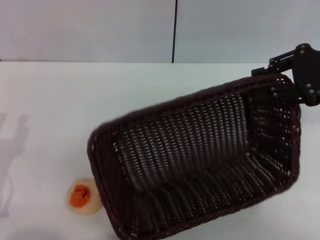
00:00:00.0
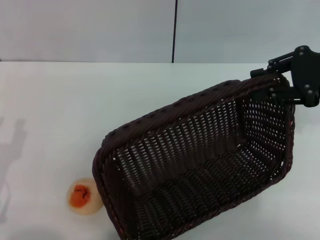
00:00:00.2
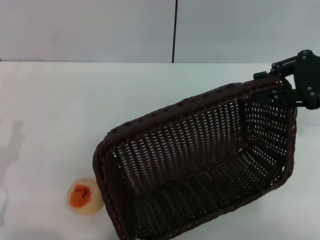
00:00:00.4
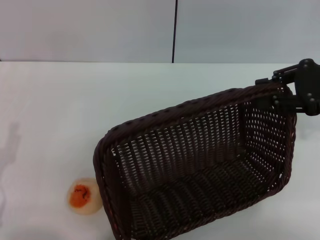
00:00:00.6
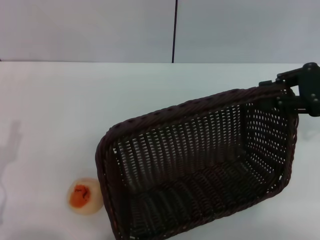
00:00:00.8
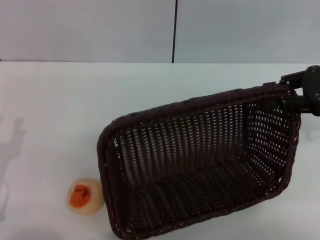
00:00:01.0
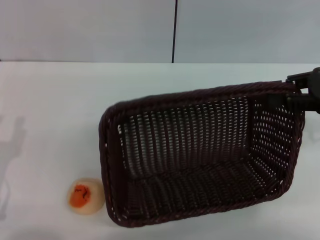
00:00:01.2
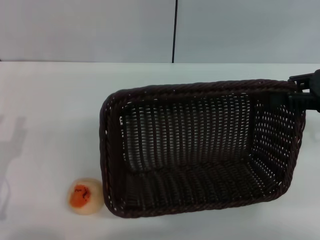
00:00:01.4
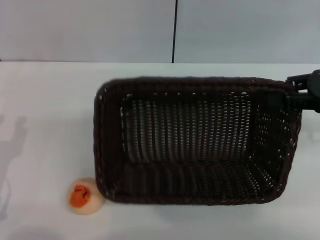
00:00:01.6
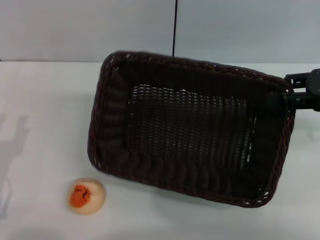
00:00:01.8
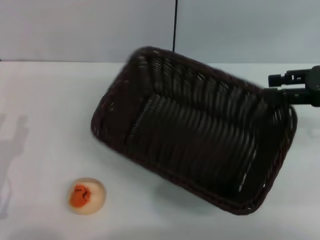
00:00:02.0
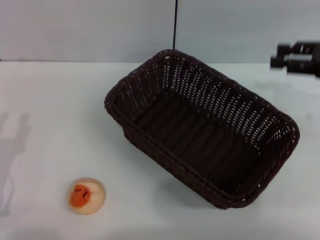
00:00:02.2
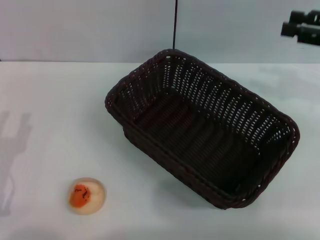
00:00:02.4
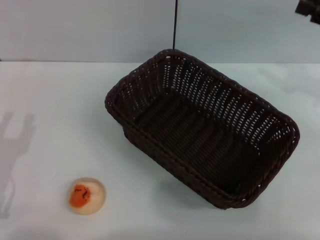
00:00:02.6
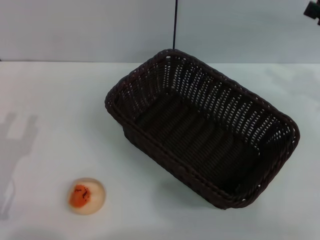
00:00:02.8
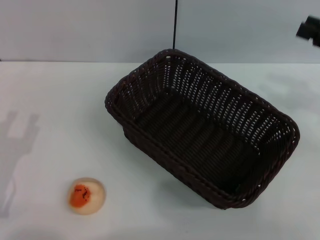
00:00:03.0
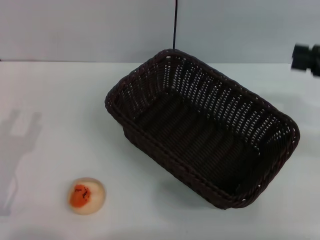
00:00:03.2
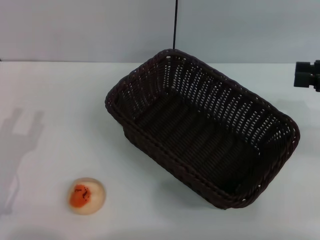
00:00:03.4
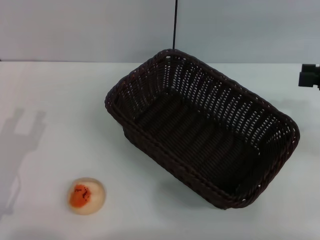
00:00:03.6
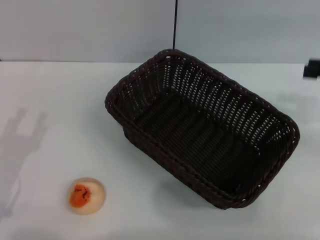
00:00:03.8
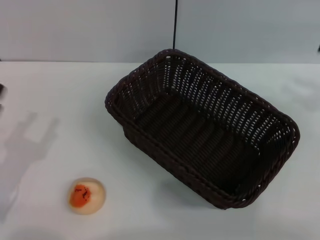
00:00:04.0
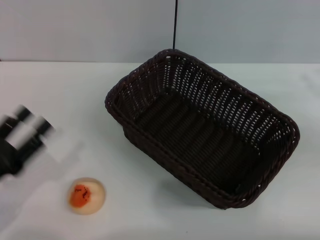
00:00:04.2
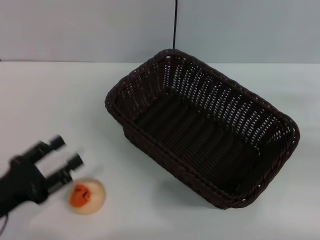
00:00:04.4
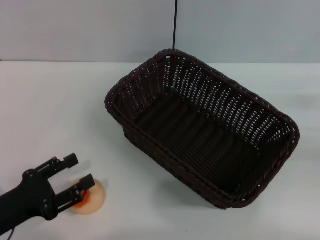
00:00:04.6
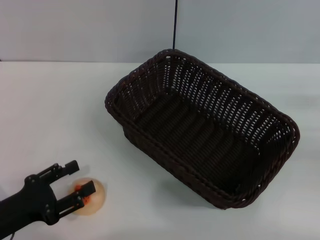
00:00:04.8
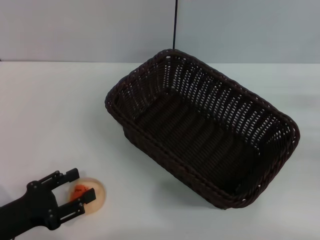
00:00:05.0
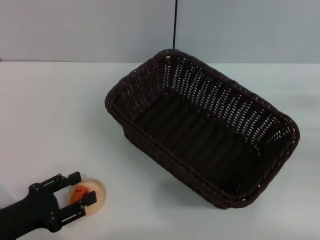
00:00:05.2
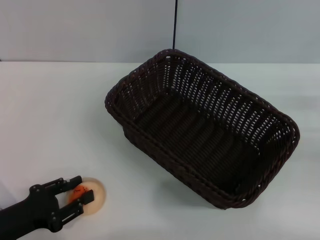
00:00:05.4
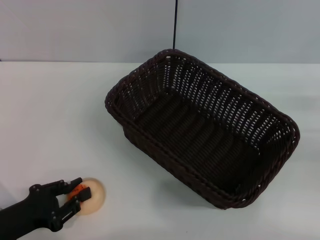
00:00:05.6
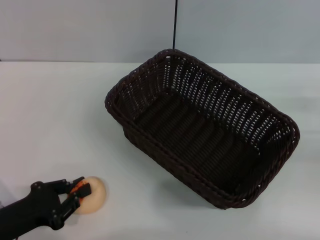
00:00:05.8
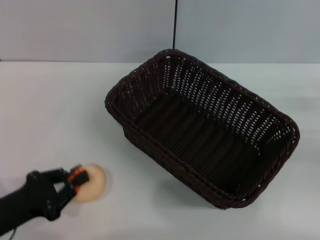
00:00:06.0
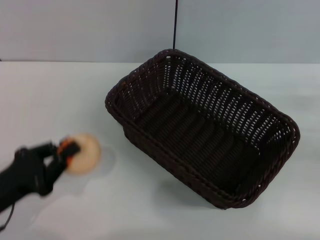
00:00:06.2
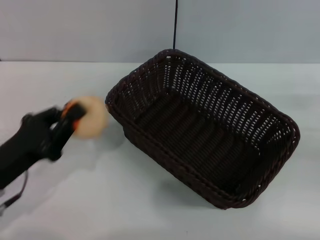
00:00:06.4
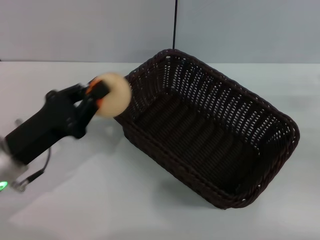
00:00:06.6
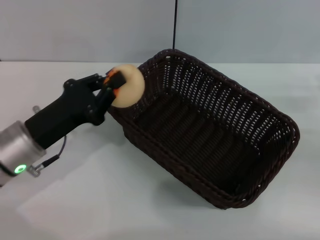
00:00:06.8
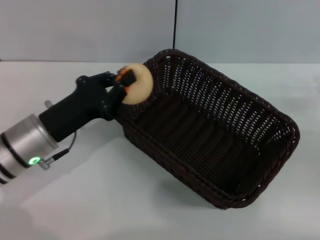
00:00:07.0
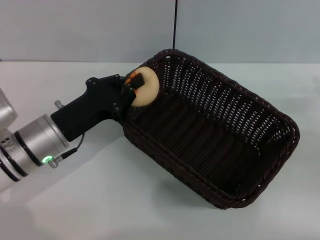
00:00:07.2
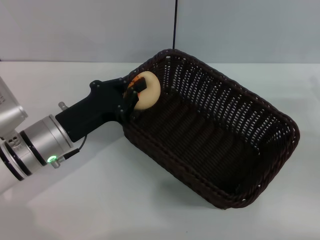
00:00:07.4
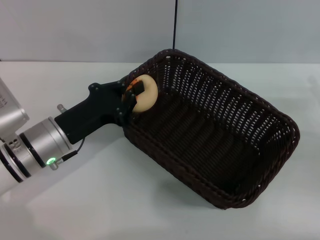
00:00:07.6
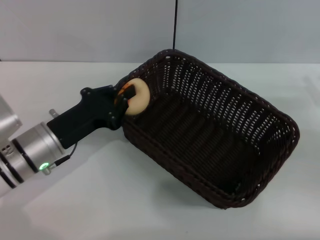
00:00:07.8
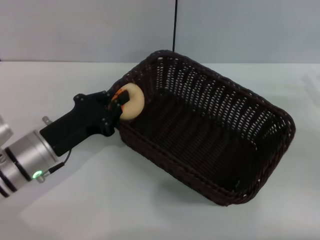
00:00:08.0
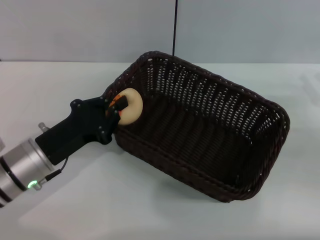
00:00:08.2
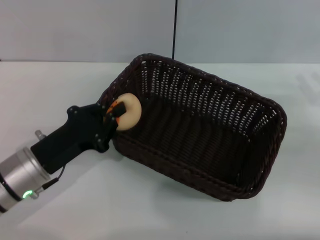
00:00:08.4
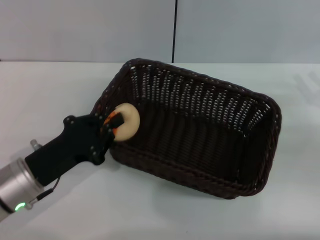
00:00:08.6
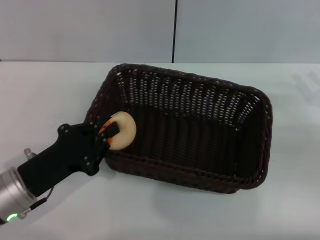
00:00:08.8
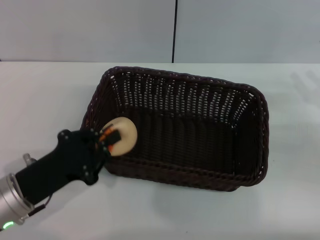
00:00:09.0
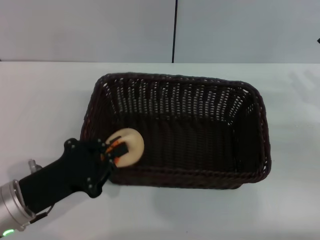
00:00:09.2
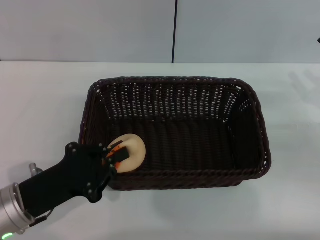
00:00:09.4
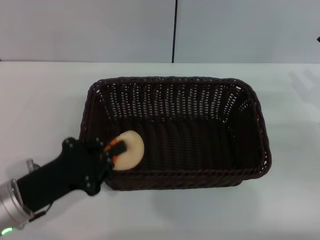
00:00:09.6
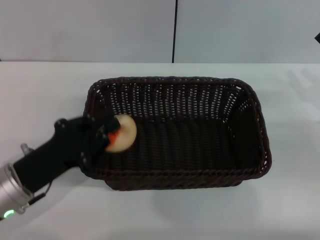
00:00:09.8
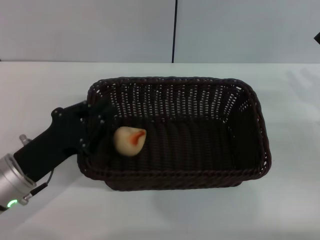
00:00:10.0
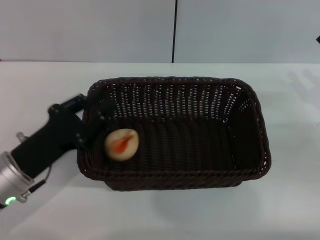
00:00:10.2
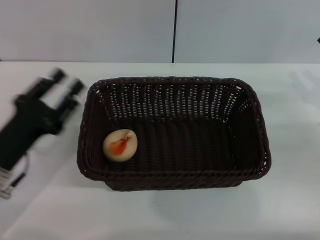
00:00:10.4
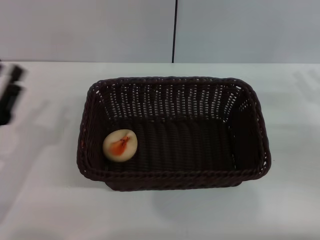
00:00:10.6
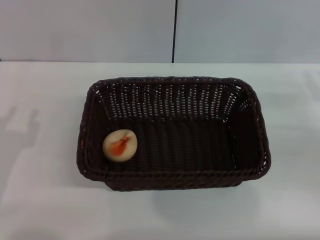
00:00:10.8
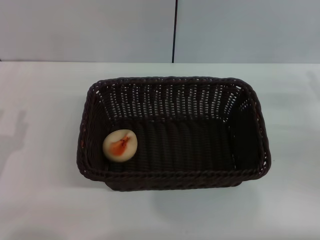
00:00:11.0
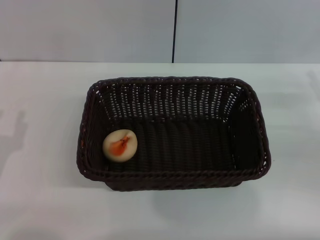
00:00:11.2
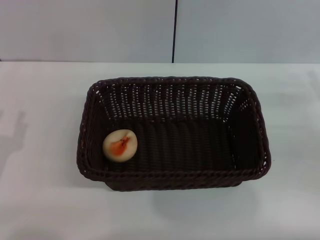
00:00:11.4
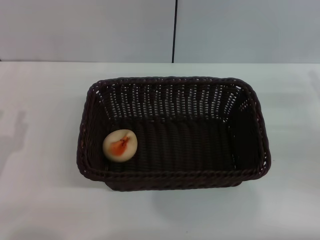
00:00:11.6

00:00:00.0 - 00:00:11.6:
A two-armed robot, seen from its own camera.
Step, 00:00:00.0 - 00:00:02.2: Move the basket to the center of view with the right gripper.
Step, 00:00:02.4 - 00:00:06.2: Pick up the egg yolk pastry with the left gripper.
Step, 00:00:06.4 - 00:00:10.2: Place the egg yolk pastry into the basket with the left gripper.
00:00:00.0 - 00:00:01.4: The right gripper shifts by some 5 cm.
00:00:01.4 - 00:00:02.8: The right gripper opens up.
00:00:02.8 - 00:00:04.4: The right gripper moves downward and backward, about 10 cm.
00:00:04.4 - 00:00:05.8: The left gripper closes its fingers.
00:00:05.8 - 00:00:07.2: The left gripper goes about 15 cm forward and to the right.
00:00:07.2 - 00:00:08.8: The left gripper is displaced backward by approximately 5 cm.
00:00:08.8 - 00:00:10.2: The grippers move only a little.
00:00:10.2 - 00:00:11.6: The left gripper shifts roughly 10 cm to the left and backward, and opens.

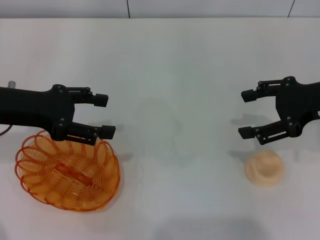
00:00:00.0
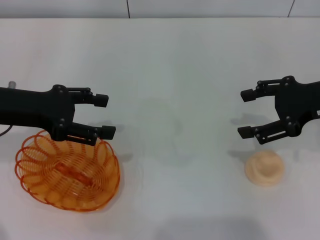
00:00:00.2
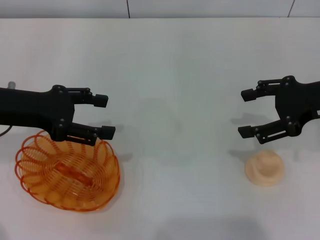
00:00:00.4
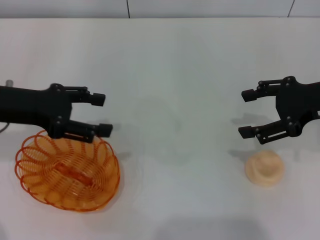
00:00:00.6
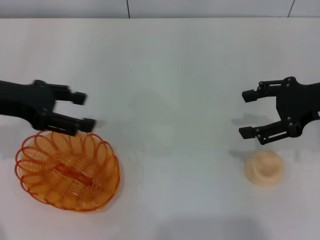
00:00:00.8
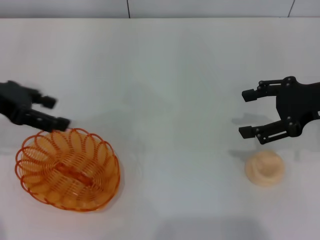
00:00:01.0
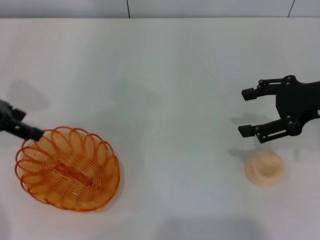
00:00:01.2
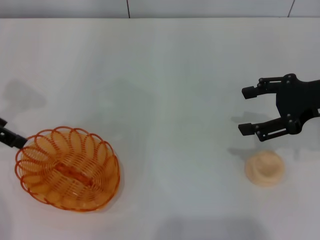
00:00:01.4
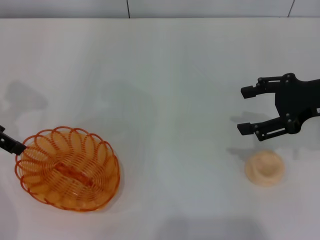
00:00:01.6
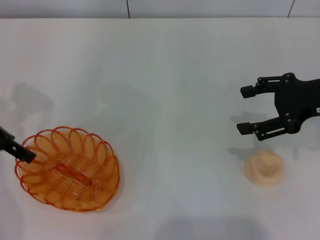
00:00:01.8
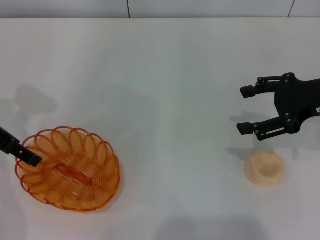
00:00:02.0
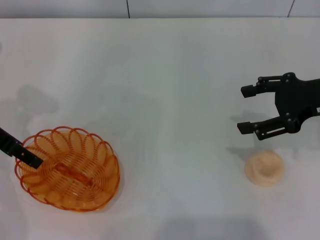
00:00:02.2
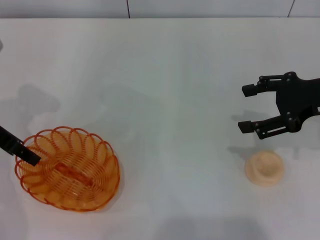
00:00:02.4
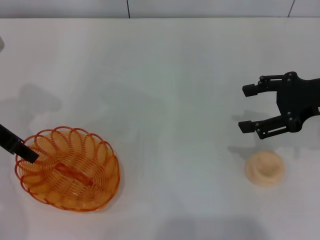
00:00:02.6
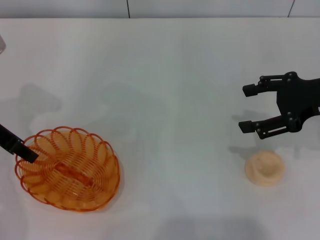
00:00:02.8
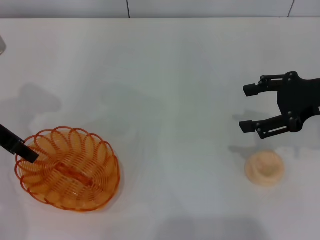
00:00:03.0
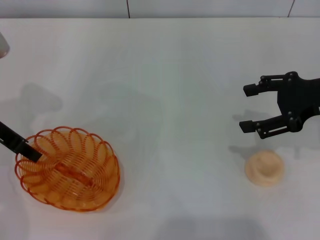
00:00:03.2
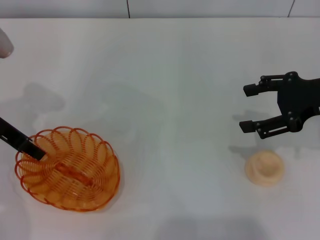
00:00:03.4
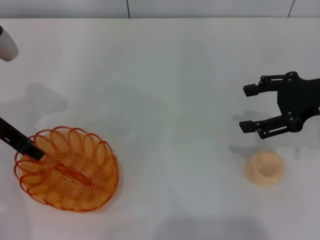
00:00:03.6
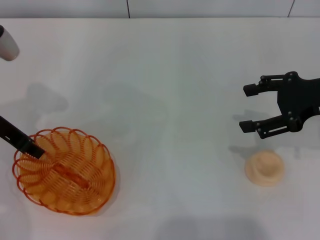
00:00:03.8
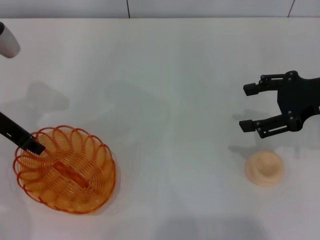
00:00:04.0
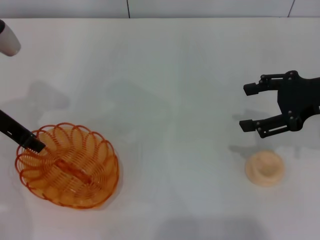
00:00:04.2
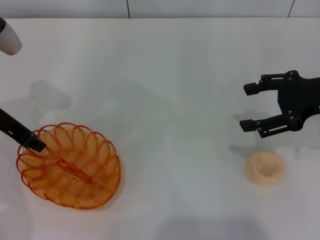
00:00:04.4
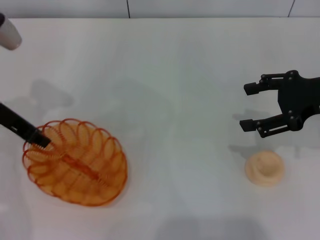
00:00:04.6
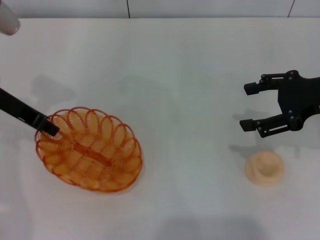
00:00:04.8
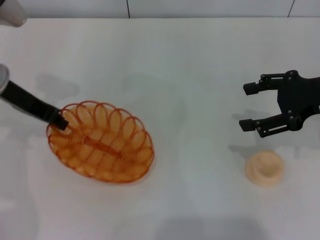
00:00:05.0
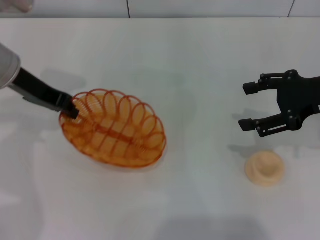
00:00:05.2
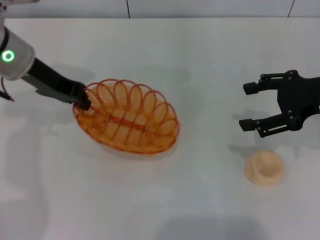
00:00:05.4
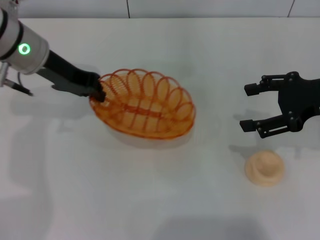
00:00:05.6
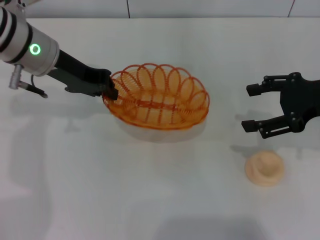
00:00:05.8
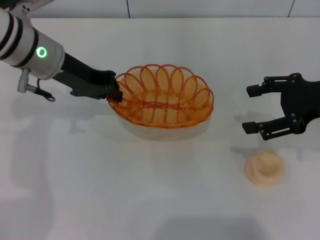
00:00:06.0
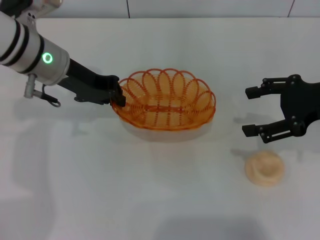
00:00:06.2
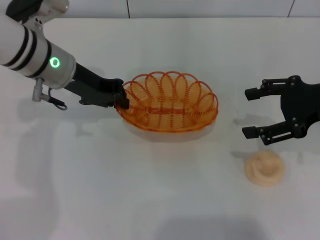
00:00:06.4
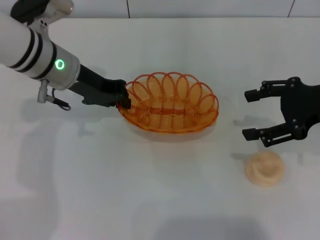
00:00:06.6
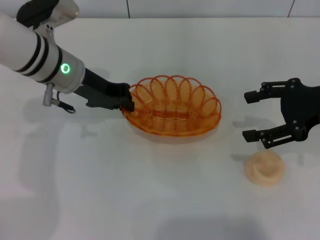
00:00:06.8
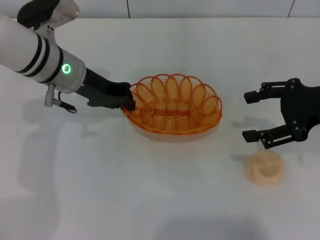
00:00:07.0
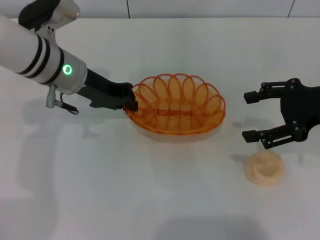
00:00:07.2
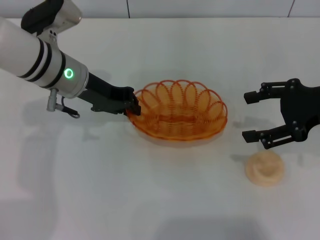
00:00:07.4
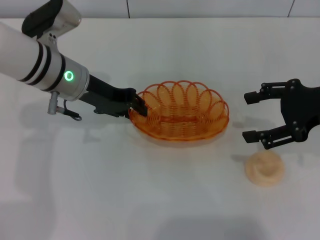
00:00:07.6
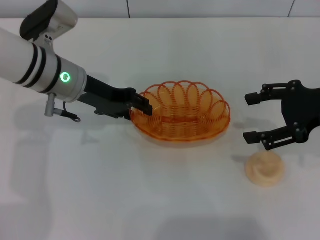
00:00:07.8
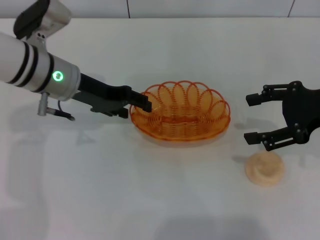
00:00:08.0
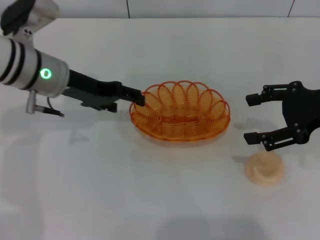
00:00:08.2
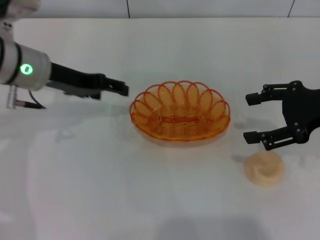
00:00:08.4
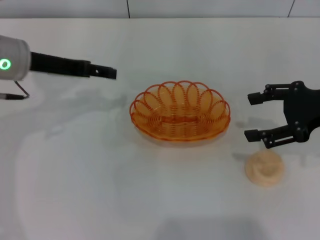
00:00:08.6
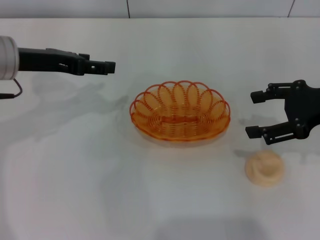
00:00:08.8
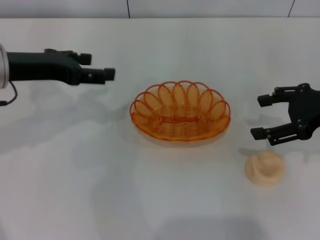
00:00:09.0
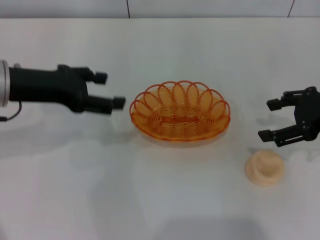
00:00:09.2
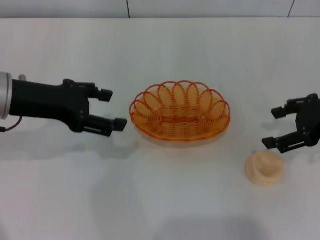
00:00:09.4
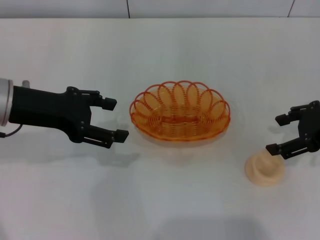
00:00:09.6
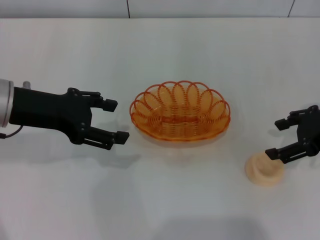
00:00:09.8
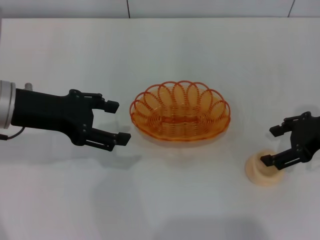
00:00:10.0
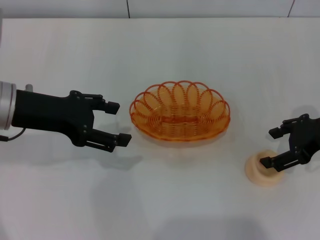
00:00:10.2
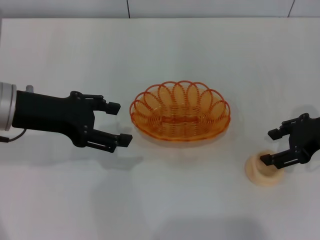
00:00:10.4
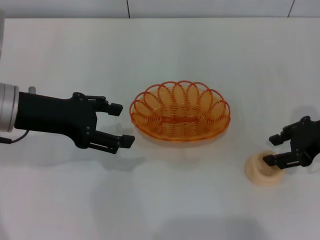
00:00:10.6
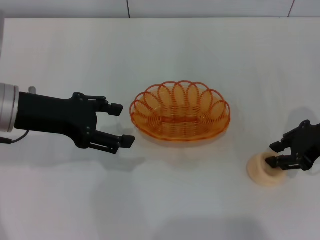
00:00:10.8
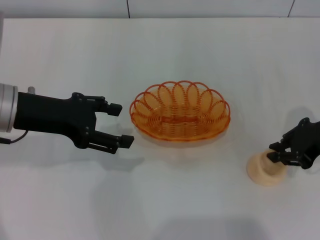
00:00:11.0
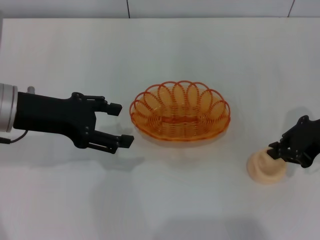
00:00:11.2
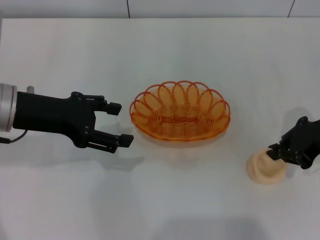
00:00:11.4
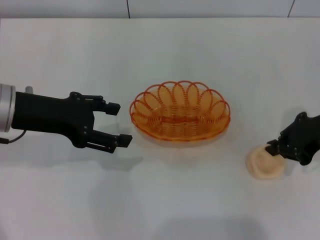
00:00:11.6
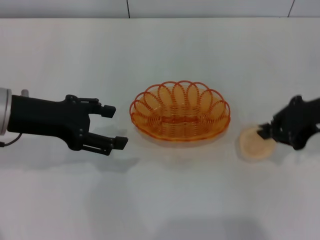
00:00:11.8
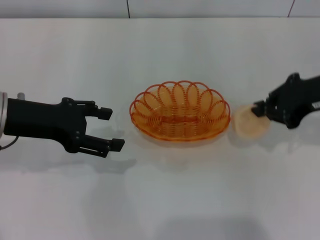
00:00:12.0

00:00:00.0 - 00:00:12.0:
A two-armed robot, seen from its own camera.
Step, 00:00:00.0 - 00:00:04.6: Pick up the basket with the left gripper.
Step, 00:00:04.8 - 00:00:09.2: Place the basket in the center of view with the left gripper.
00:00:00.0 - 00:00:01.6: The left gripper shifts by some 5 cm.
00:00:01.6 - 00:00:03.0: The left gripper closes its fingers.
00:00:03.0 - 00:00:04.4: The grippers make only small movements.
00:00:04.4 - 00:00:06.0: The left gripper is displaced to the right by roughly 10 cm.
00:00:06.0 - 00:00:07.6: The grippers stay close to where they were, moving slightly.
00:00:07.6 - 00:00:09.0: The left gripper shifts about 10 cm to the left, and opens its fingers.
00:00:10.4 - 00:00:12.0: The right gripper shifts roughly 5 cm upward, and closes up.
